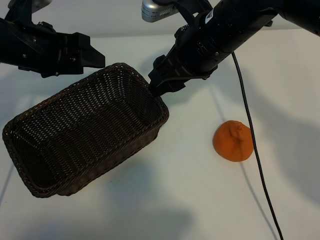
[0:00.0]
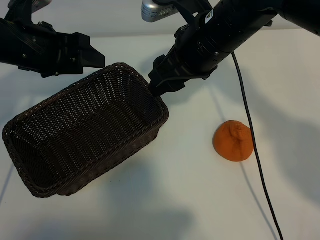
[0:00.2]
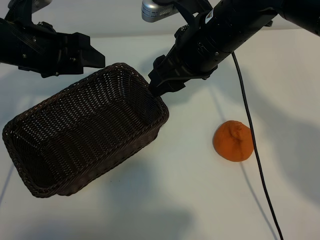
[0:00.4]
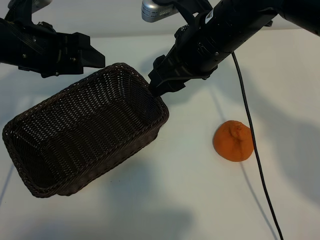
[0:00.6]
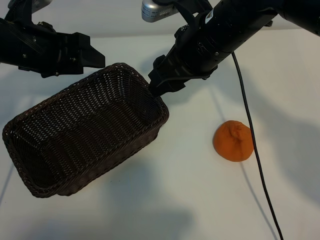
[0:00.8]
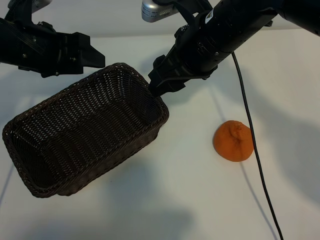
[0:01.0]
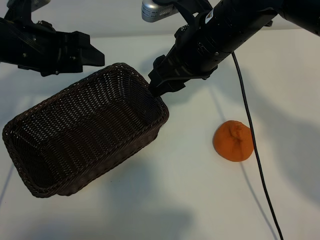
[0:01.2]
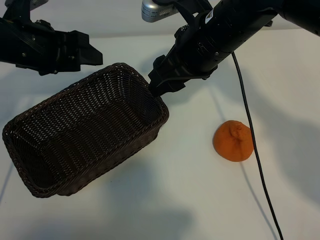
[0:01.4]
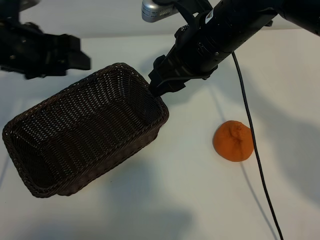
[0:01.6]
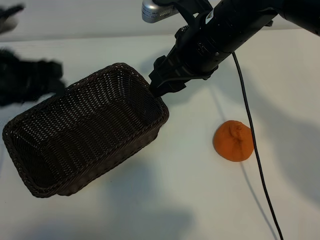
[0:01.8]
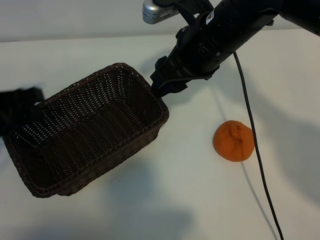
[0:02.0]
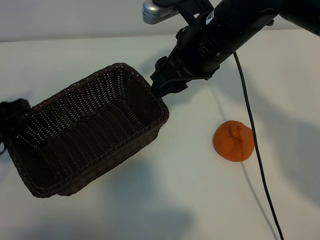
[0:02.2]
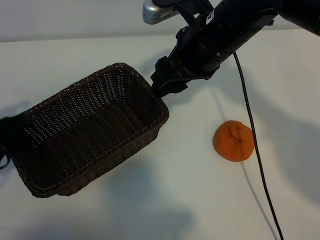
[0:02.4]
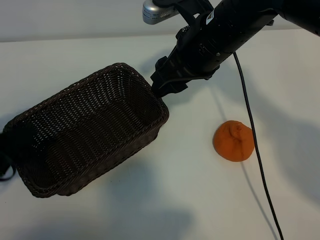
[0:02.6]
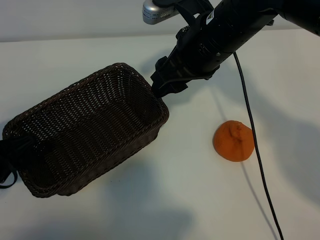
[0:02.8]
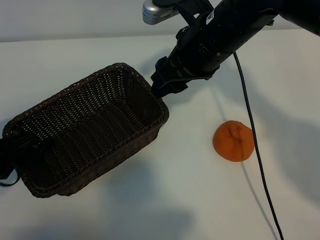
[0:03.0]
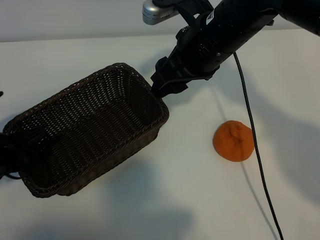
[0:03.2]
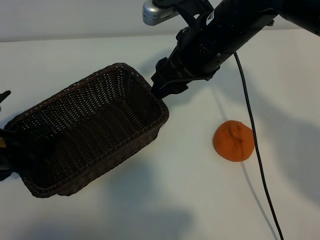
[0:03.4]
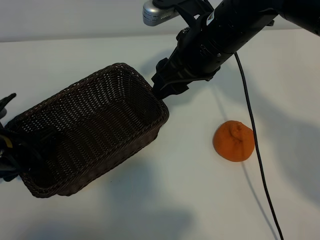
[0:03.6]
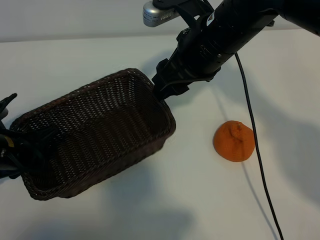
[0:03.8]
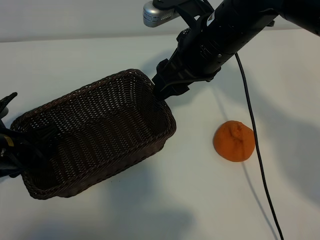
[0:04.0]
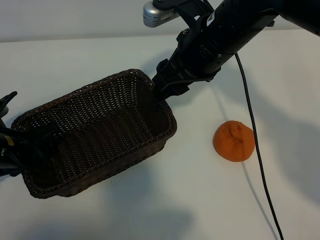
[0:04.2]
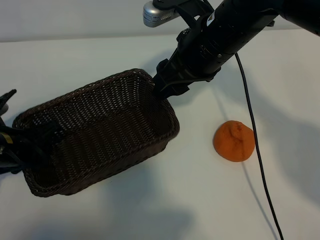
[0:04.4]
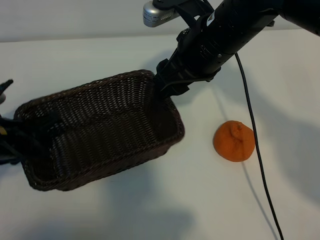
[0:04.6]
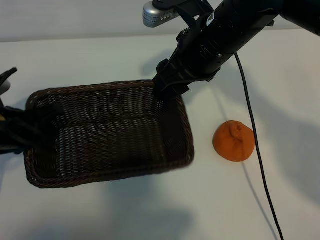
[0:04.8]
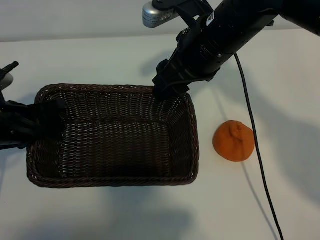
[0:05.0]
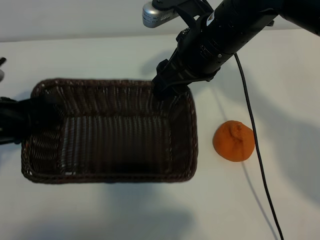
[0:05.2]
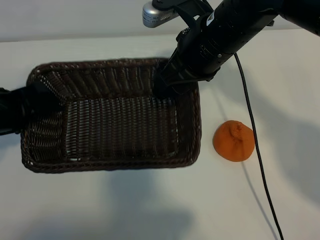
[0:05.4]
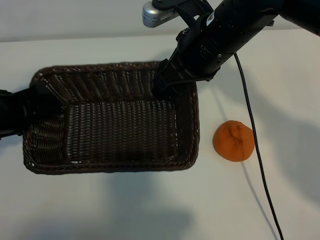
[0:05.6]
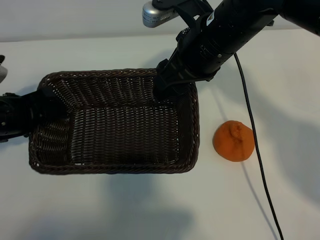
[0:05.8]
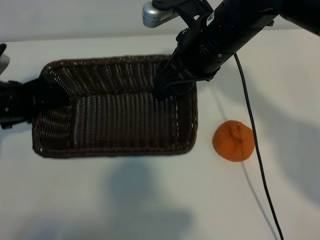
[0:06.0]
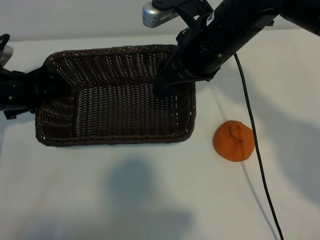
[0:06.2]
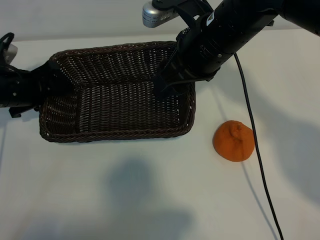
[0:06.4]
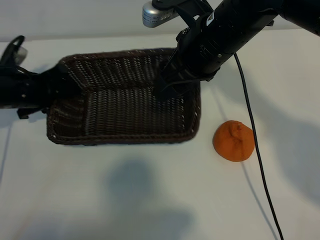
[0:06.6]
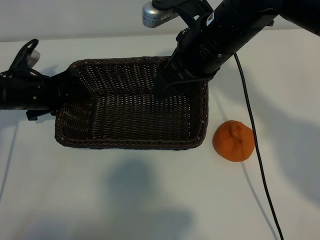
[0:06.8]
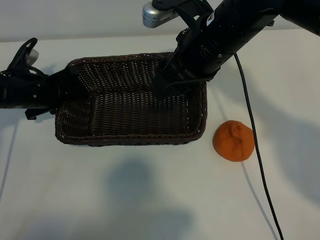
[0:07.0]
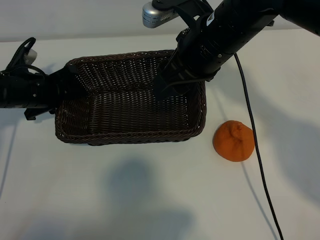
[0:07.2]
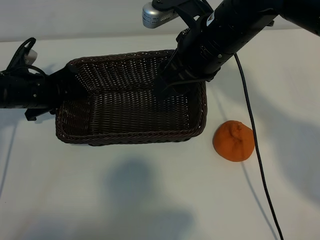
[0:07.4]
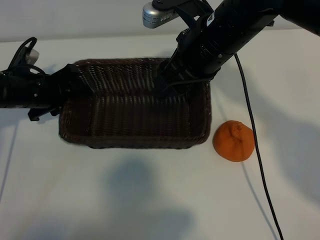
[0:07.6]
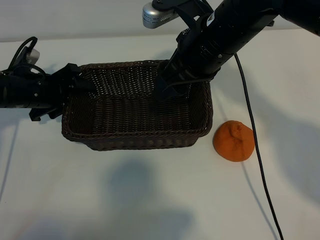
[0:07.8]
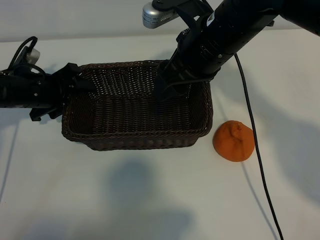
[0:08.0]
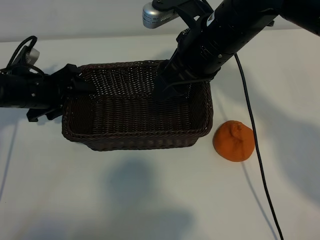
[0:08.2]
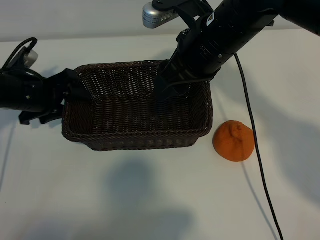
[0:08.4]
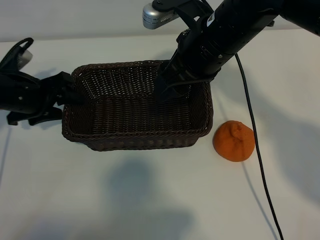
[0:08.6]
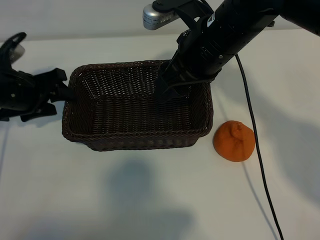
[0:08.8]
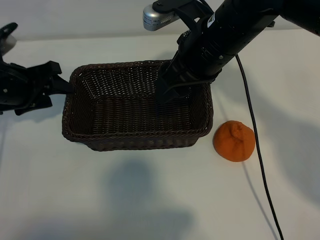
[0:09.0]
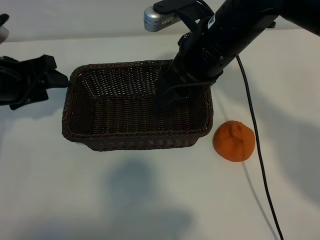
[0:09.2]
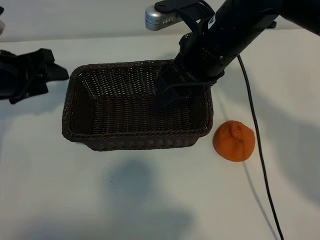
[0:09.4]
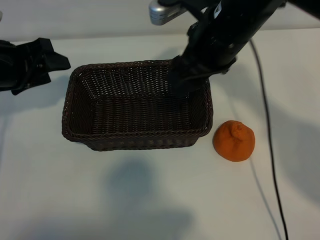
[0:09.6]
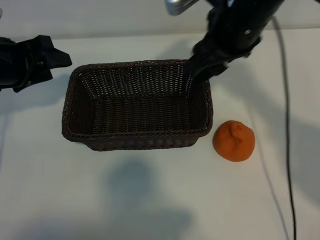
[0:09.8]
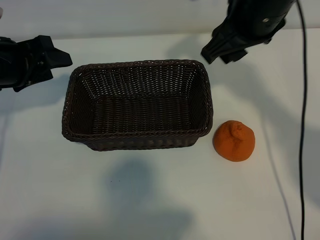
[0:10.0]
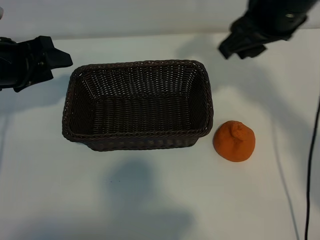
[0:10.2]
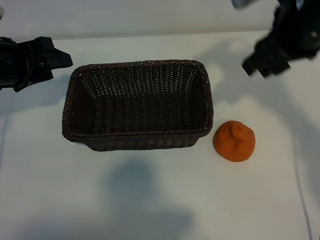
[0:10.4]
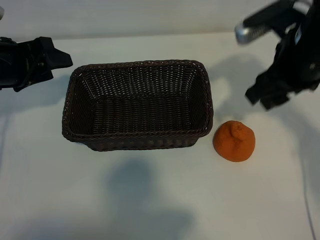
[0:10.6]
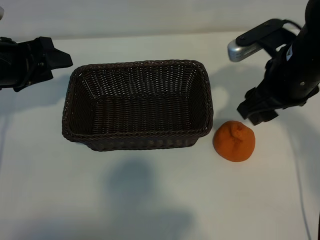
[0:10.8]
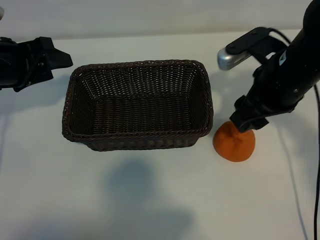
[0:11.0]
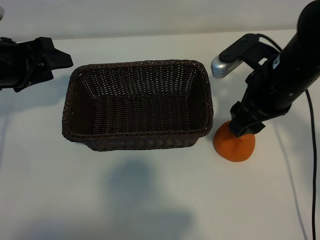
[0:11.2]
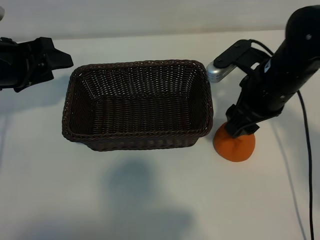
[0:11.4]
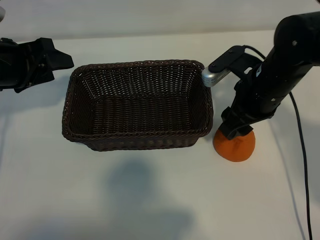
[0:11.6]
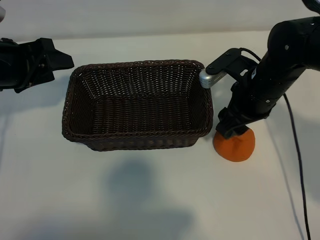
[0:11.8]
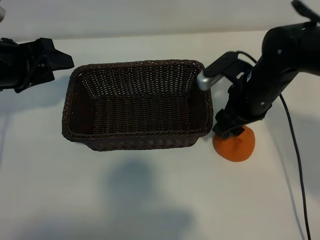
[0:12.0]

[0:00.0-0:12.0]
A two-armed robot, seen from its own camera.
Task of the whole recording: pick up the orange and put it into the basket.
Step, 0:01.2 to 0:03.8: Grasp the basket with left gripper.
Step, 0:04.0 to 0:07.6: Place the basket in the center of view with left gripper.

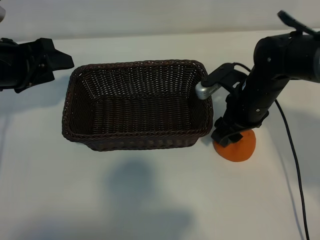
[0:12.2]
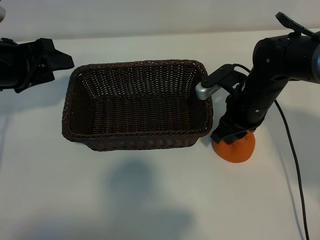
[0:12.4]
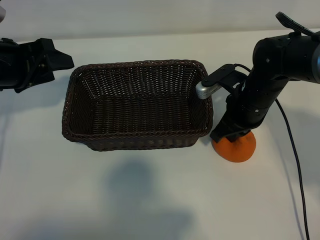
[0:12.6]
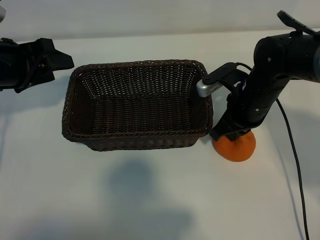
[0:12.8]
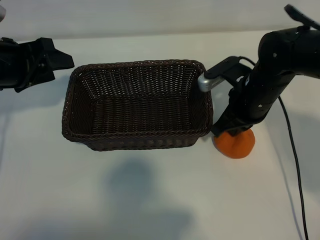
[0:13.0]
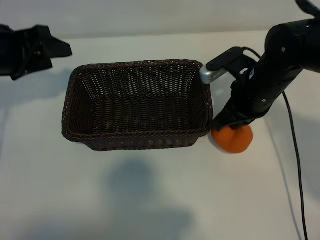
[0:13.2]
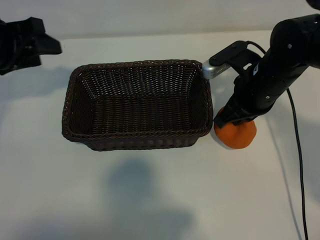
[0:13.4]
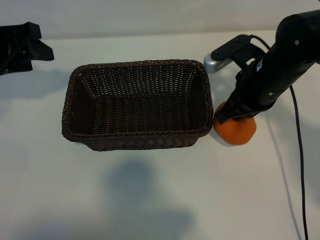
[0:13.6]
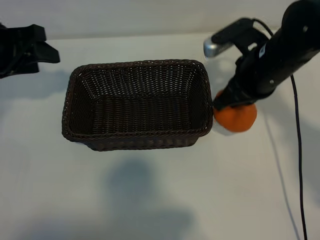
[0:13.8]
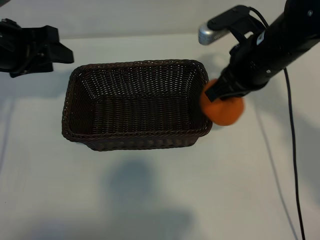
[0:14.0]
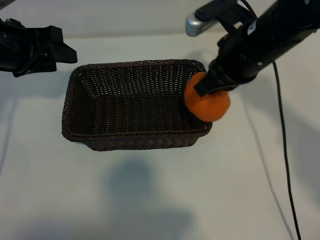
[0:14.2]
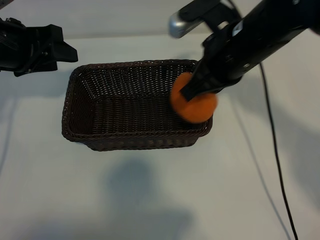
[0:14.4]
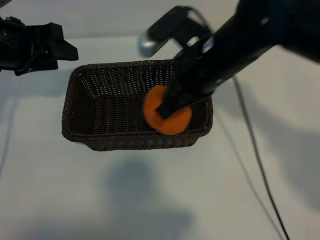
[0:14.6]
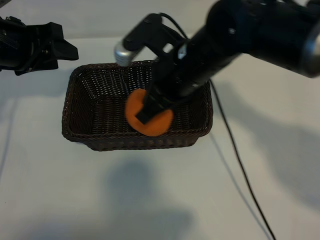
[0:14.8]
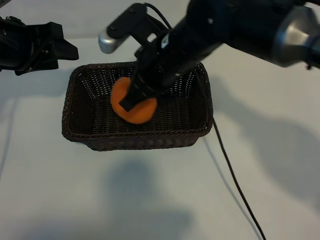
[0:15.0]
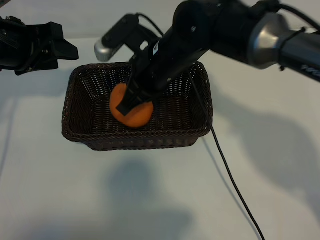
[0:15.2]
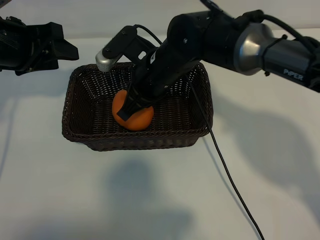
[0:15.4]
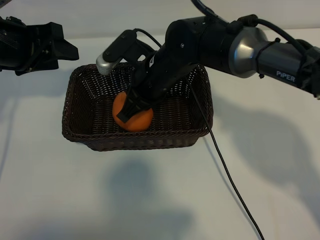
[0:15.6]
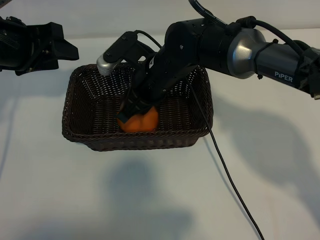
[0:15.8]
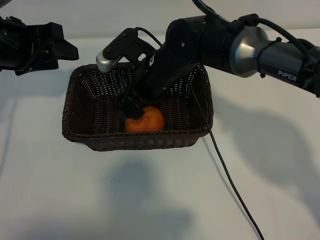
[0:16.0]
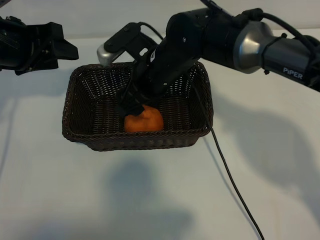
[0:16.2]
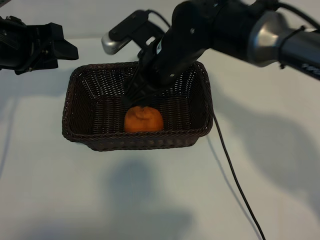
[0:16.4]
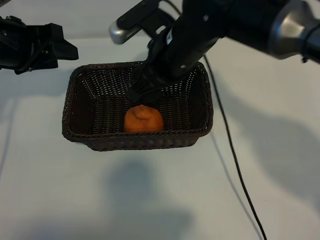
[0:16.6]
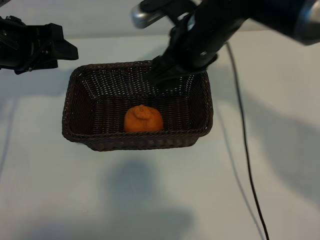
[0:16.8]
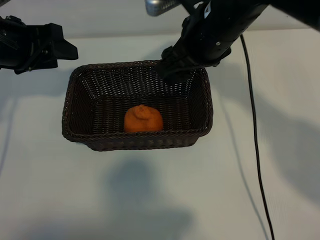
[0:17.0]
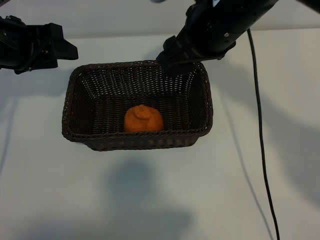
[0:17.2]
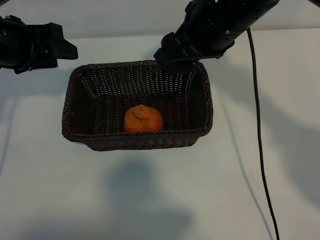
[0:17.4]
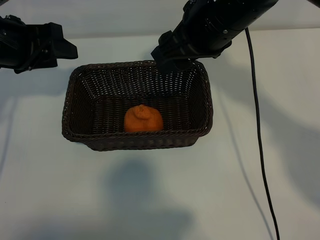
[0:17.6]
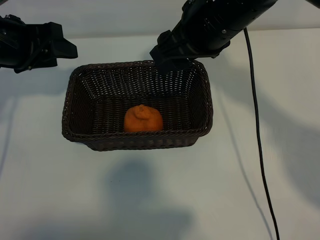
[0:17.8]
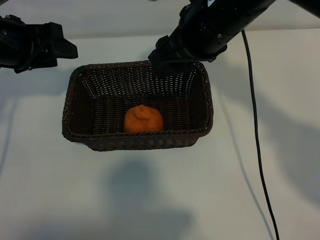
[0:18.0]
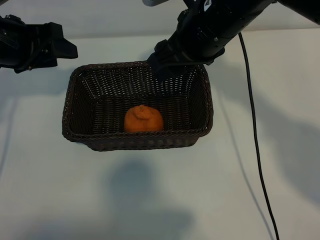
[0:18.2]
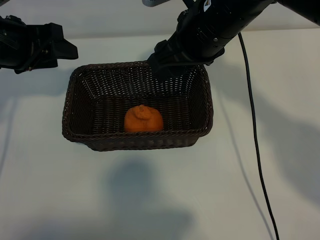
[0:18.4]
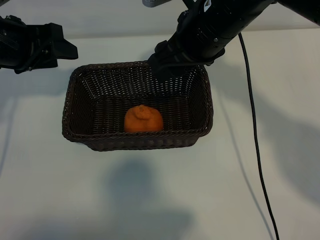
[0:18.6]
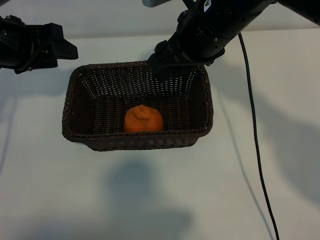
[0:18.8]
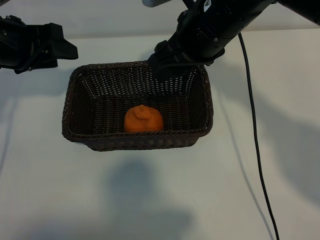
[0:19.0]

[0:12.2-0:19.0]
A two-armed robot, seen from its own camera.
Task of the whole recording: pick up the orange and put it into the basket.
Step, 0:12.8 to 0:15.8: Place the orange in the basket with right gripper.

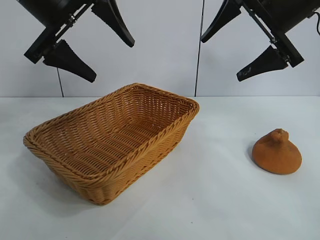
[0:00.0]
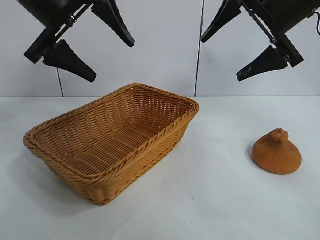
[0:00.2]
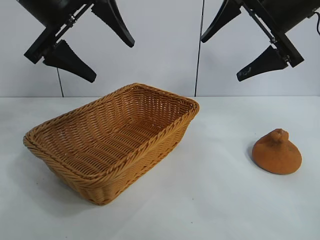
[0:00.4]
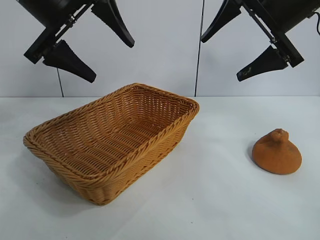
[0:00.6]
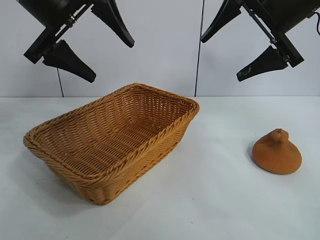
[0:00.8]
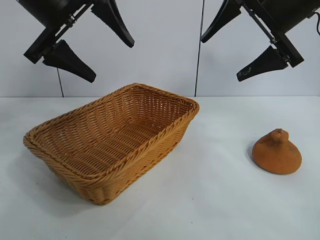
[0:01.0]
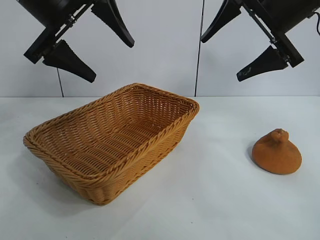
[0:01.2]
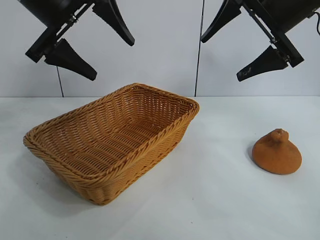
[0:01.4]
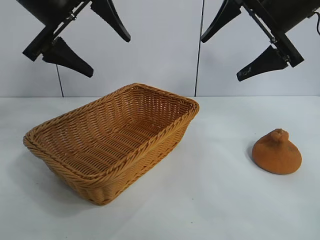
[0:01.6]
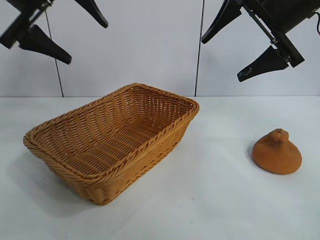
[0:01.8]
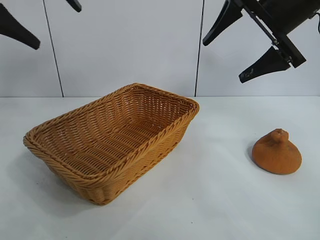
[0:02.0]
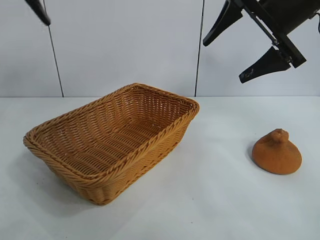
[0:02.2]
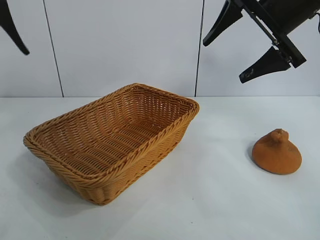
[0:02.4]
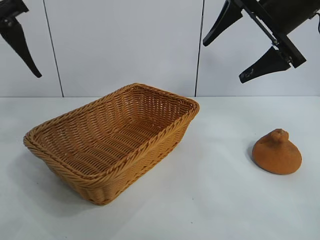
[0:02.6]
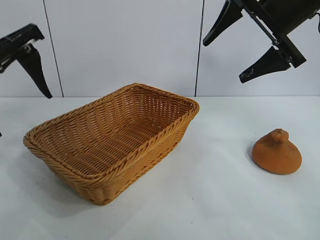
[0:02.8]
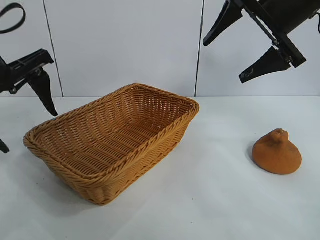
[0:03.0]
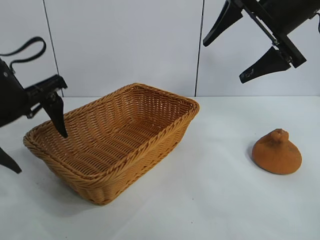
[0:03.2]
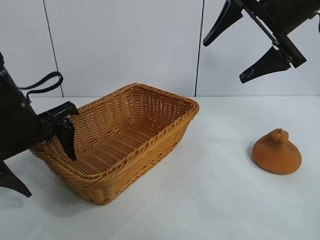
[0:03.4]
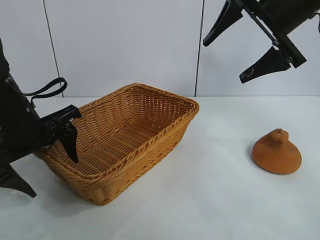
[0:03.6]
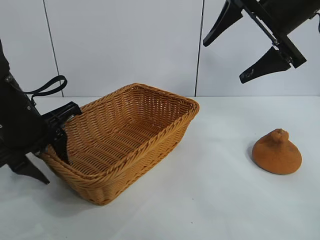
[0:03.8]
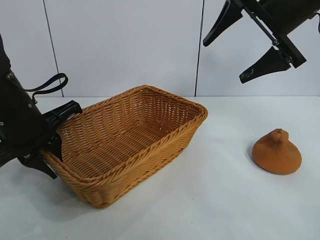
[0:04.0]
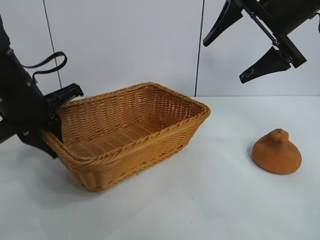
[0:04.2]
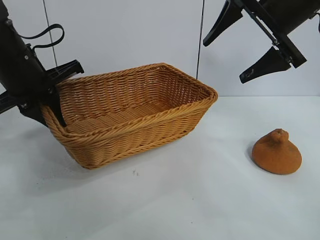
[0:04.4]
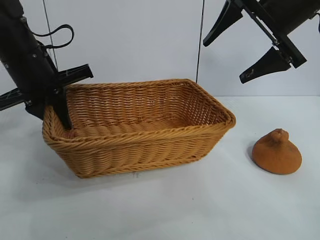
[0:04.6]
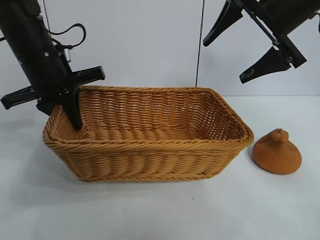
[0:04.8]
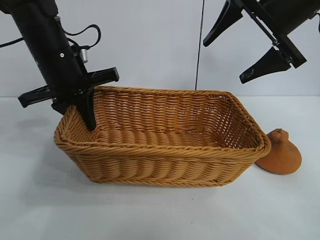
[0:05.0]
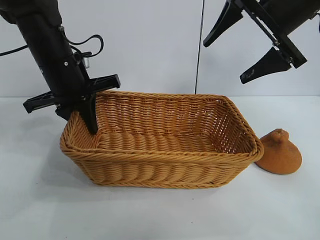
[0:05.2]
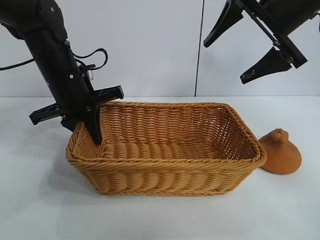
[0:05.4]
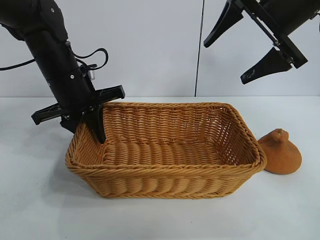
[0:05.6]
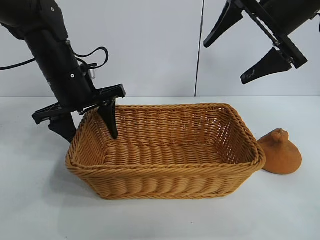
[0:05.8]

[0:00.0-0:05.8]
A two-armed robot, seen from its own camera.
Task of the whole recording: pick up the orange and put it into the basket.
Step, 0:01.0 to 0:03.8: Grasp the basket with left gripper.
Step, 0:04.0 to 0:05.8: Place the basket in the center of view with left gripper.
